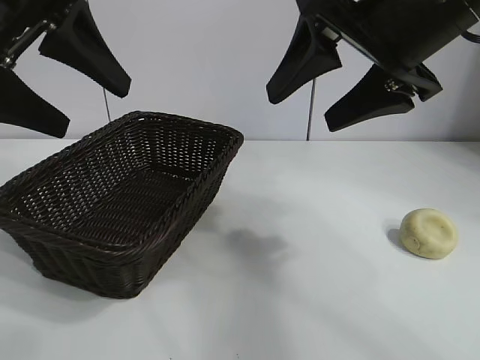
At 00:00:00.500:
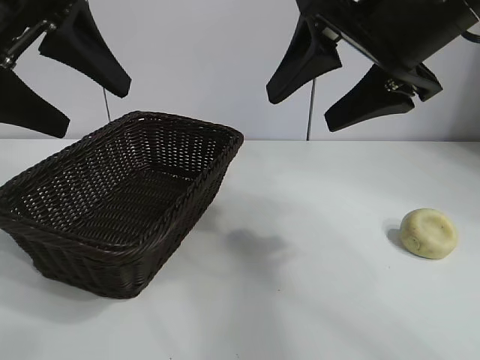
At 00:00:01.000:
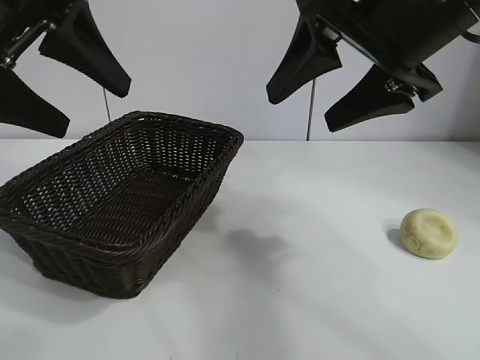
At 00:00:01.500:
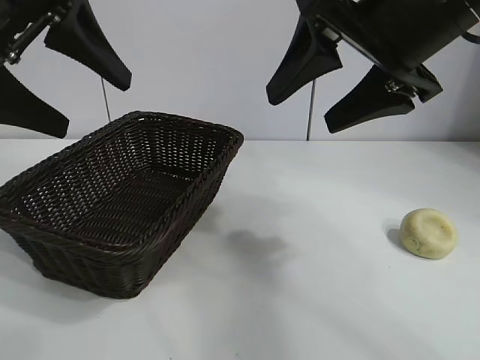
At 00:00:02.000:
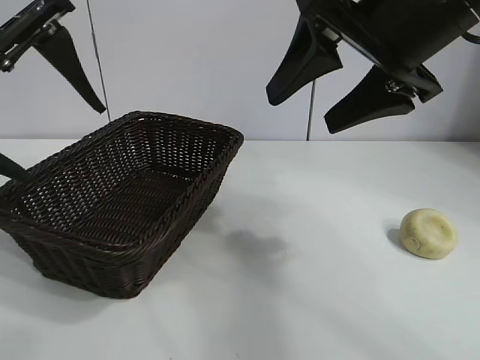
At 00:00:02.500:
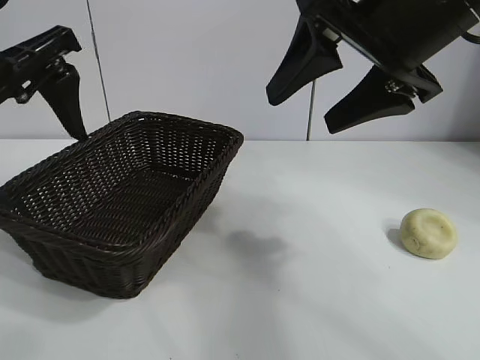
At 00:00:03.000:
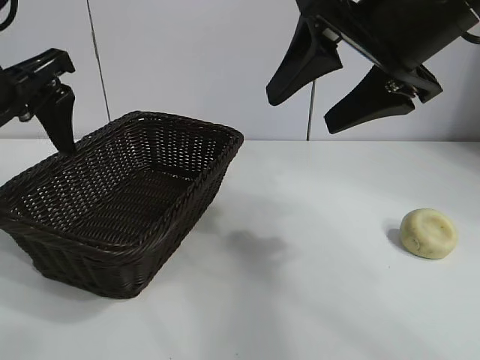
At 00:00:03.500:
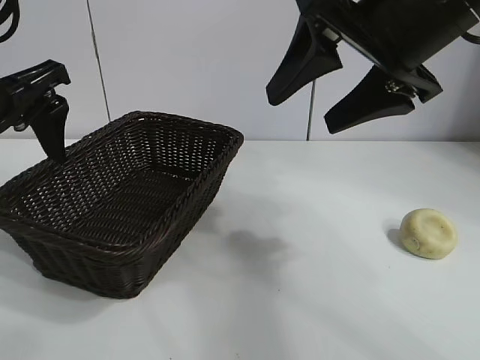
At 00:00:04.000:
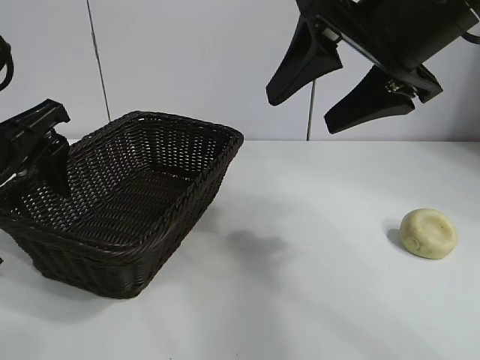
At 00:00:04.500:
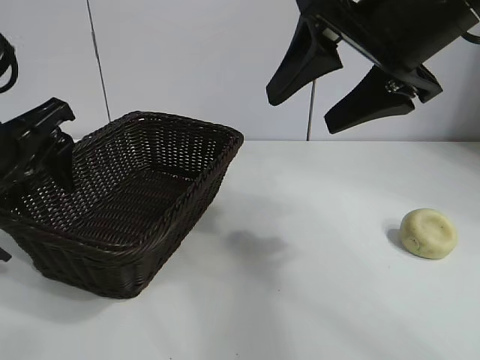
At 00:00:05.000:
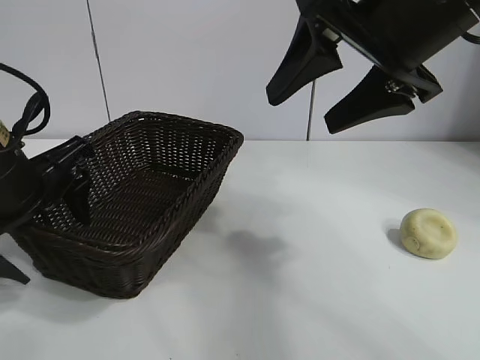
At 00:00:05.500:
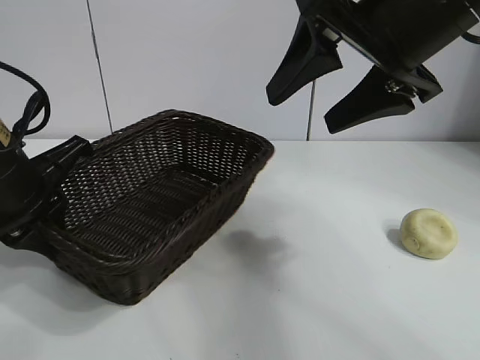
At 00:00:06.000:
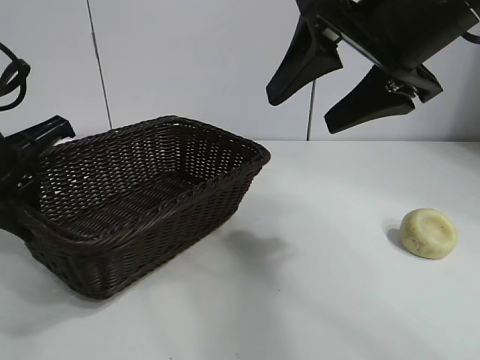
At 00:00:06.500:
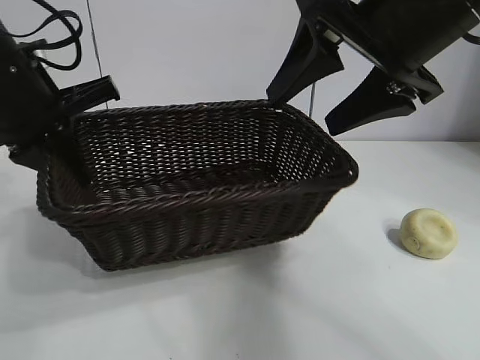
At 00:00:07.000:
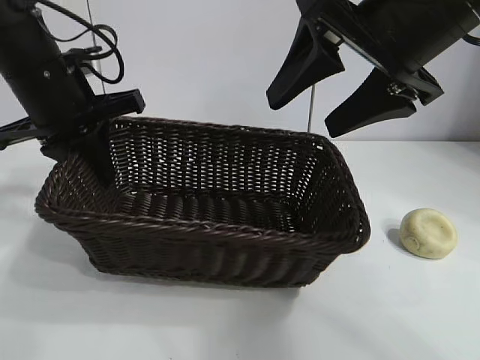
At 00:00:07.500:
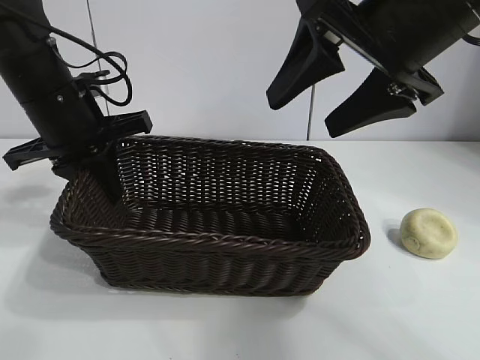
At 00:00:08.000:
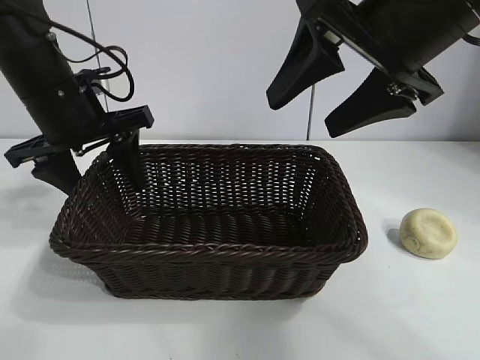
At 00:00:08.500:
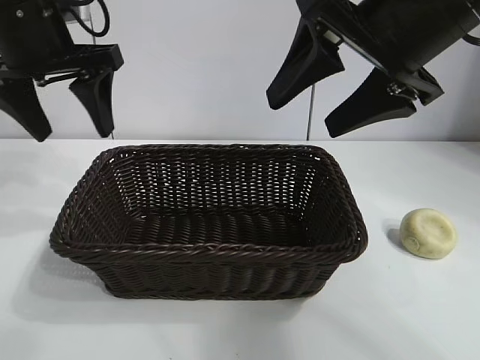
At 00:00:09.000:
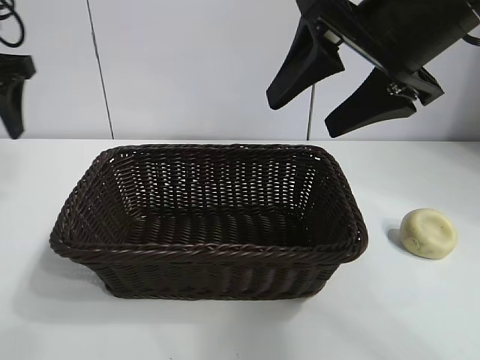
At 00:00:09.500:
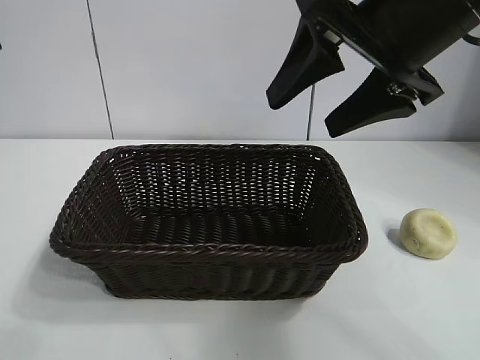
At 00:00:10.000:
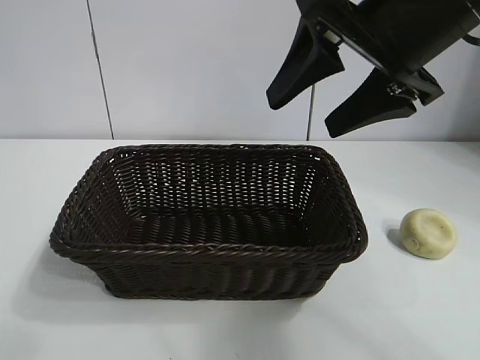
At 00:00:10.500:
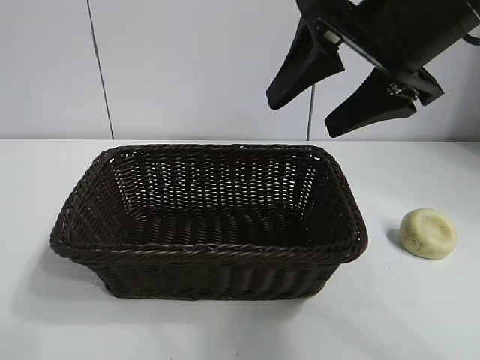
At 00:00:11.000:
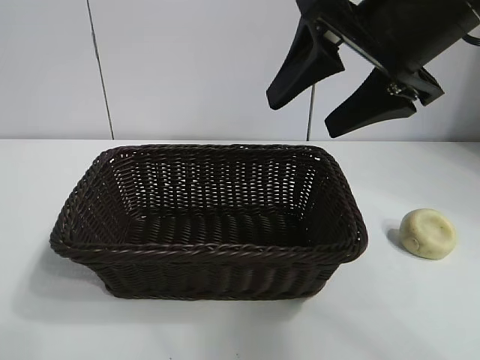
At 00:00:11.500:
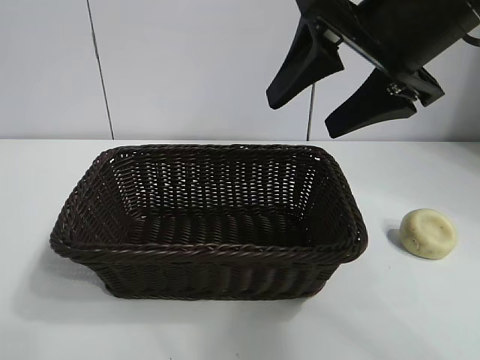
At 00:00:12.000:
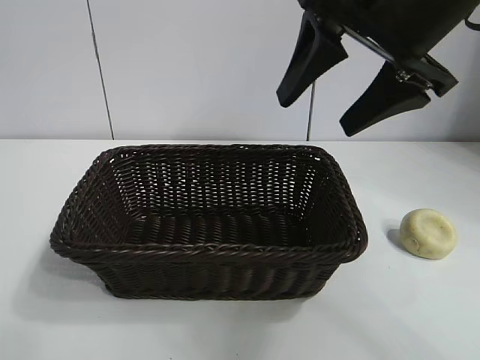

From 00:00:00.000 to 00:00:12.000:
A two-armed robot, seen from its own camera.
Task of the whole recording: pick up the egg yolk pastry and put it into the basket.
Step, from 00:00:01.500 to 00:00:05.500: Grasp the basket with left gripper.
Step, from 00:00:06.000 to 00:00:08.000: Place the basket in the center of view with left gripper.

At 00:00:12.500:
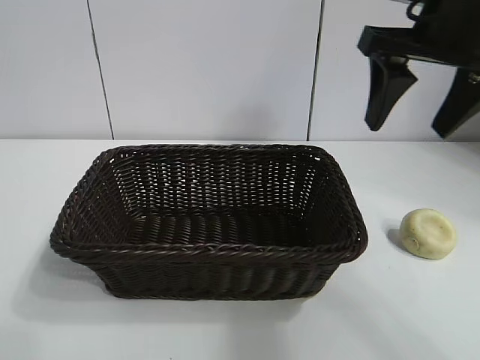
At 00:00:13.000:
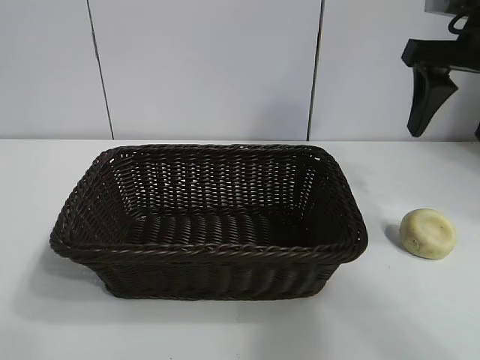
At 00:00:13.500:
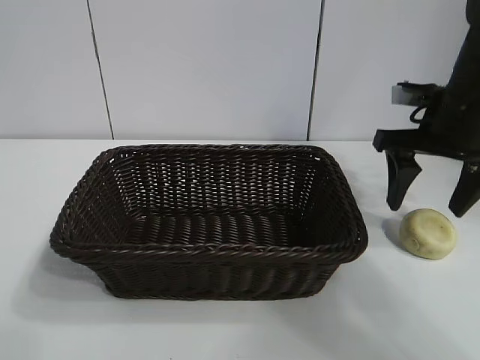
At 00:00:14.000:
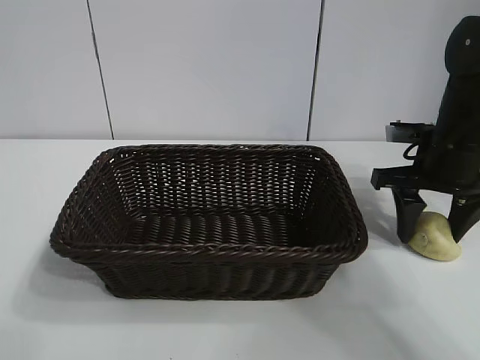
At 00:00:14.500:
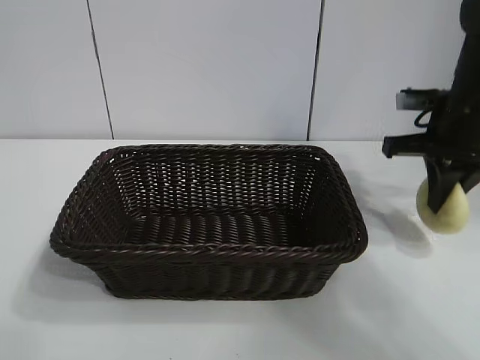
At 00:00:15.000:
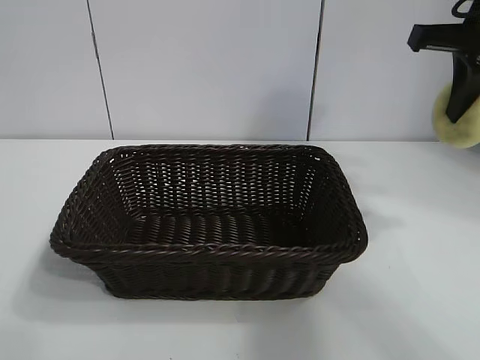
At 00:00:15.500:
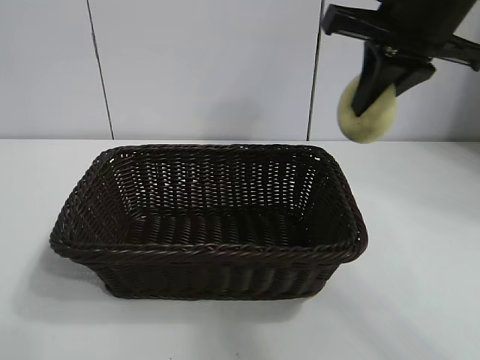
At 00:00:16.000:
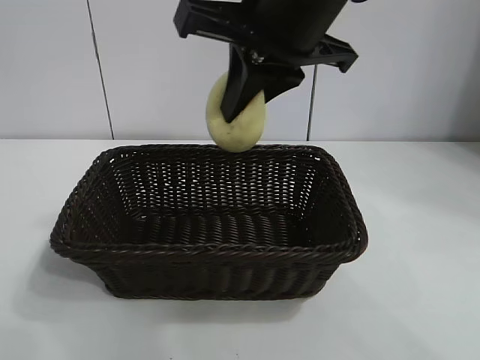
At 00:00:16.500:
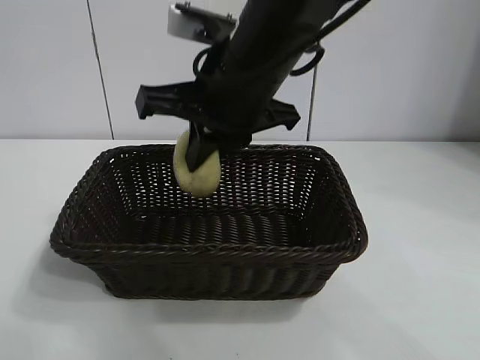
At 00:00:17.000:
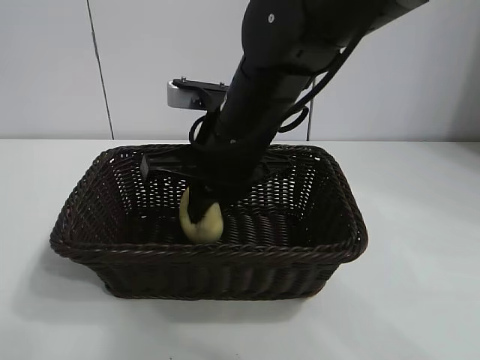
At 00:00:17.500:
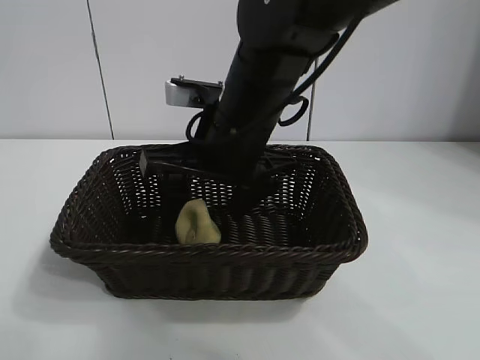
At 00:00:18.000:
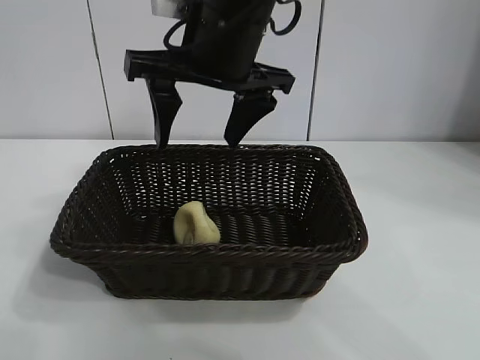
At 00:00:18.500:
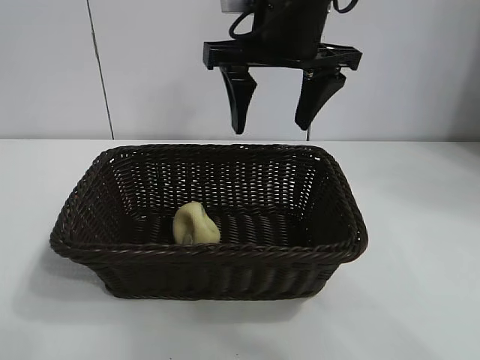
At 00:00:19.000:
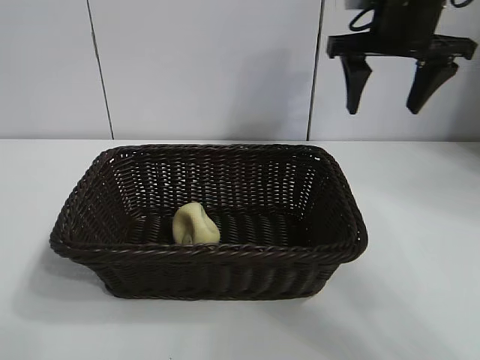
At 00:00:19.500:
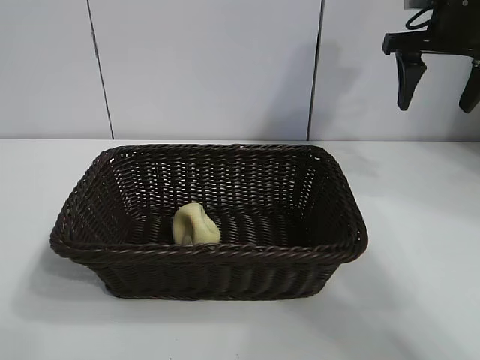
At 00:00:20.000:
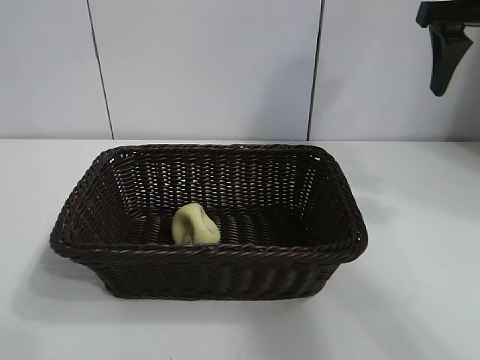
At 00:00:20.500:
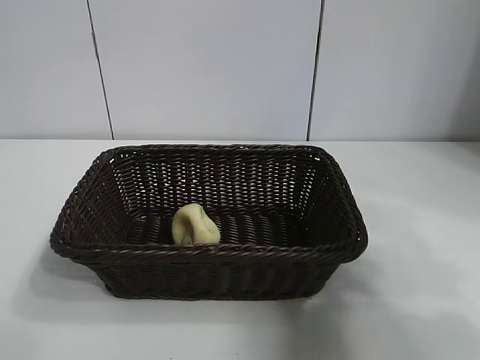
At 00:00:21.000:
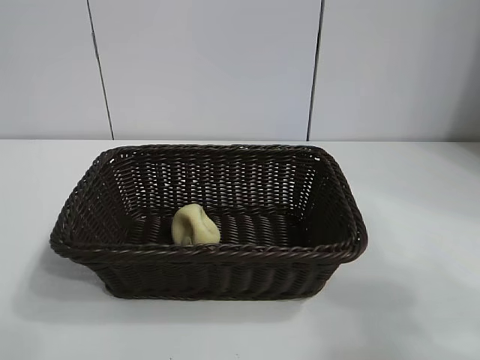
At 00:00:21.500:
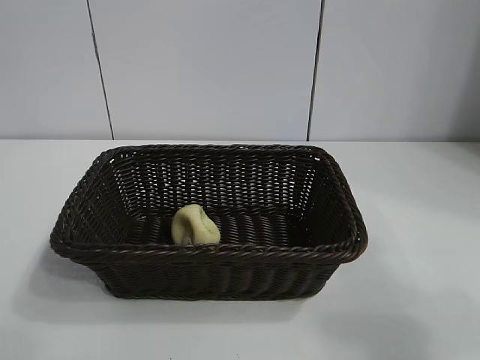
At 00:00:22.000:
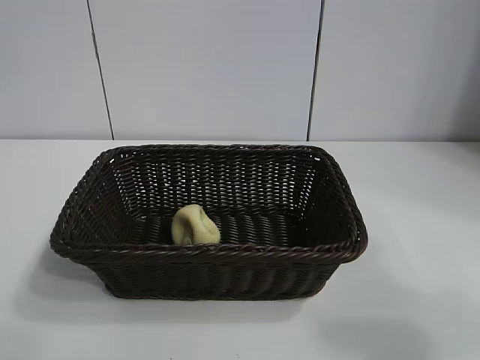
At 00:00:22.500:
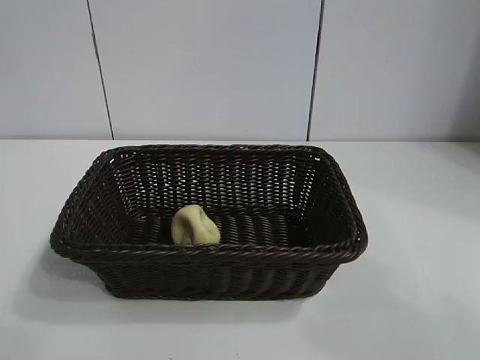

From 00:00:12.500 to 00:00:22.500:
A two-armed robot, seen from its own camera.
Task of the whole recording: pick up the egg yolk pastry and put it into the basket.
Step, from 00:00:14.500 to 00:00:17.500: Place the egg yolk pastry in the basket with right gripper.
